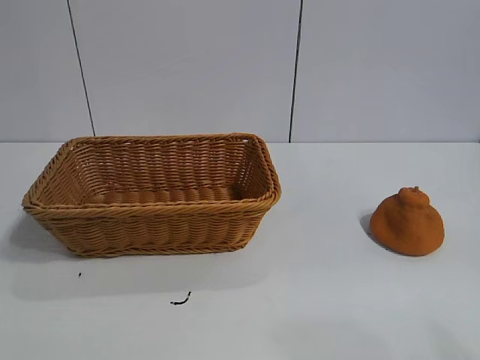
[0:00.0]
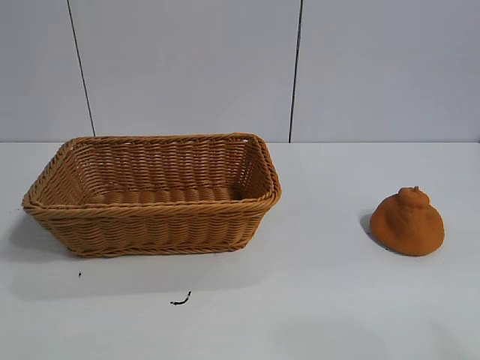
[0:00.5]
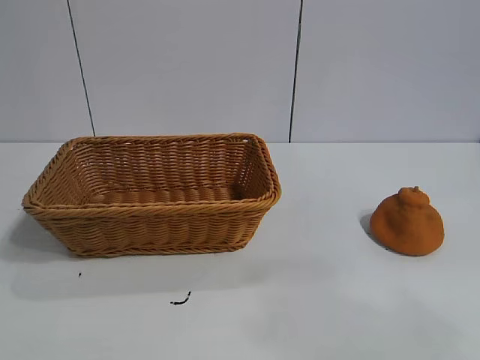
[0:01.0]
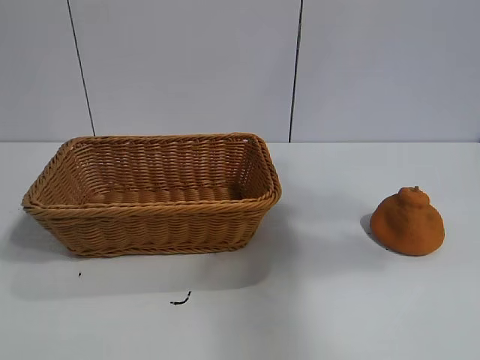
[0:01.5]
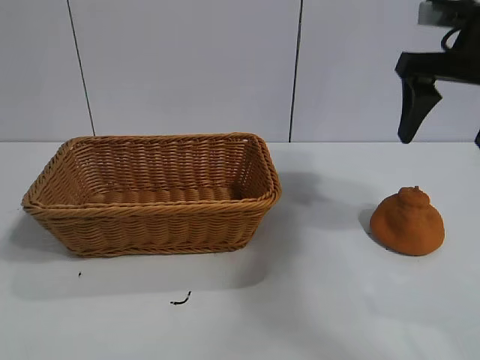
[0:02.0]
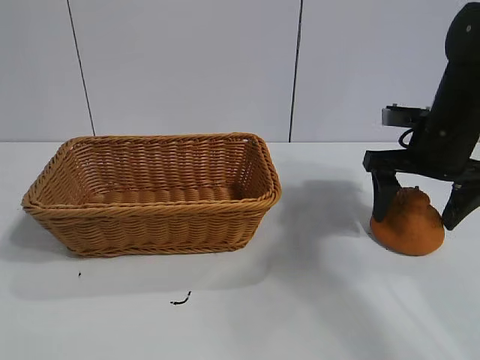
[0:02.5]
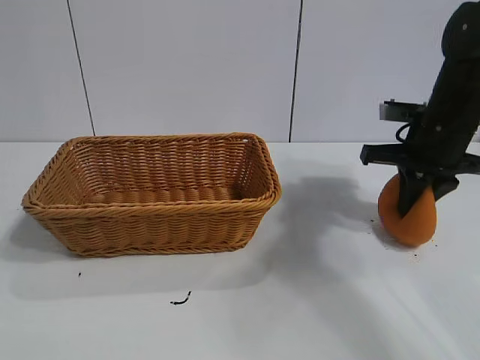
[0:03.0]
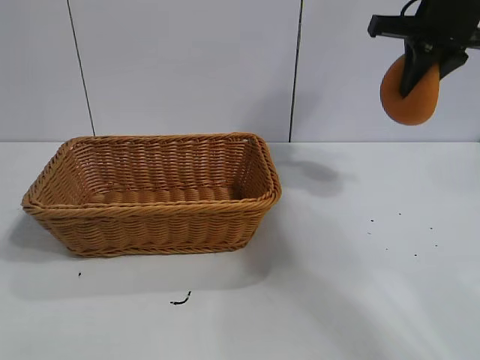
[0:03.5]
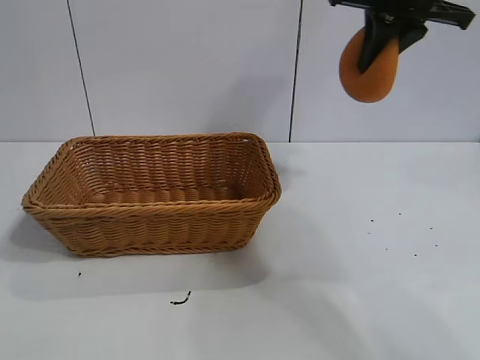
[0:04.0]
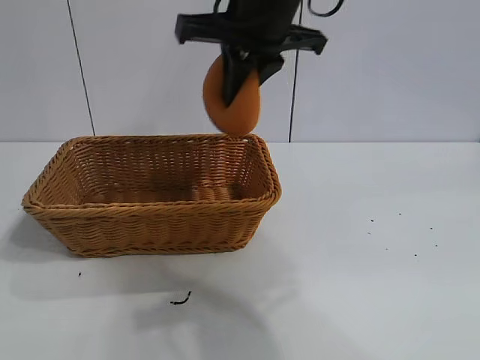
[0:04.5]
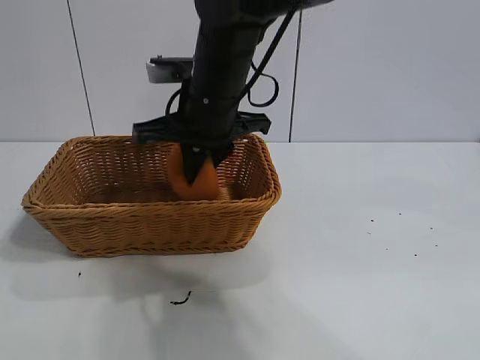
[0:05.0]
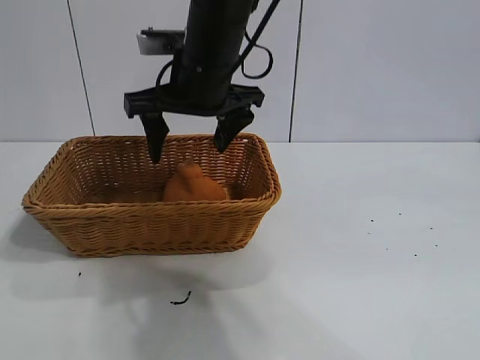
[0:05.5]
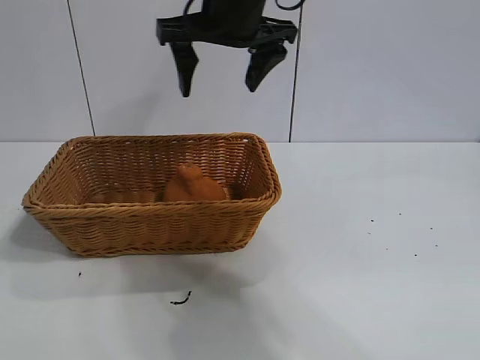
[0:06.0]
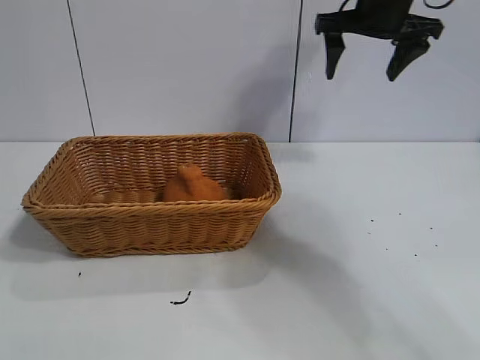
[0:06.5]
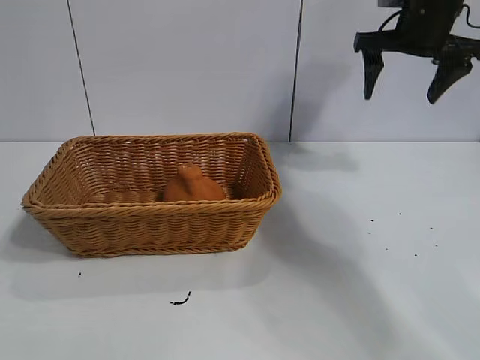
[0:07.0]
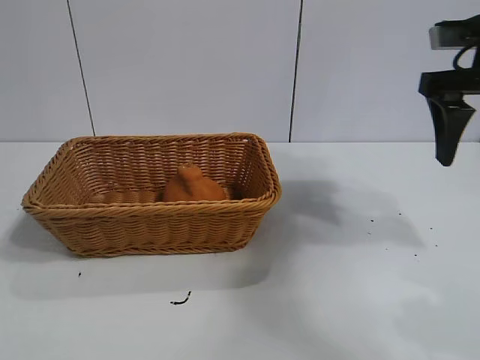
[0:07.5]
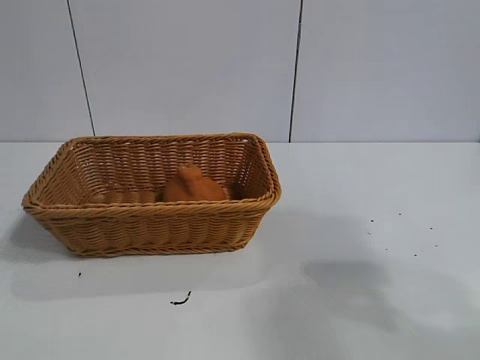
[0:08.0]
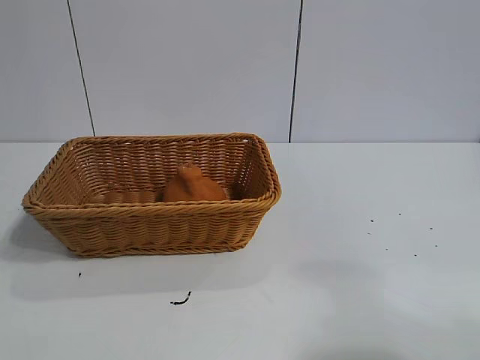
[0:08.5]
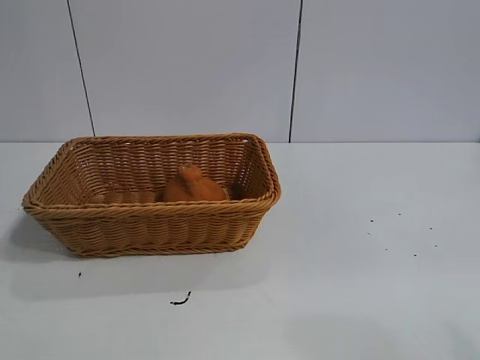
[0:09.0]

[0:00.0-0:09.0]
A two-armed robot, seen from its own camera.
Task of the whole recording: pick up the orange and put it into the basket.
Step, 0:00.0 to 0:02.5: Grasp the orange with right gripper.
Step, 0:03.0 to 0:05.5: Place the orange in the basket with right gripper.

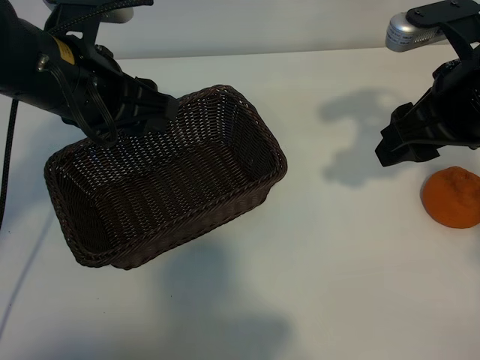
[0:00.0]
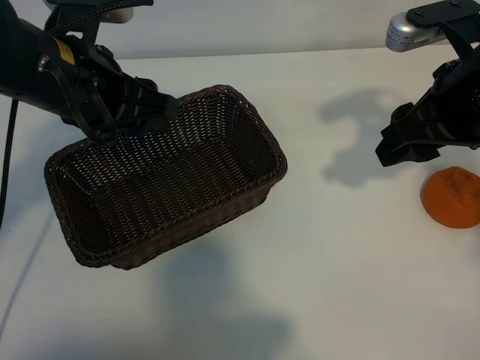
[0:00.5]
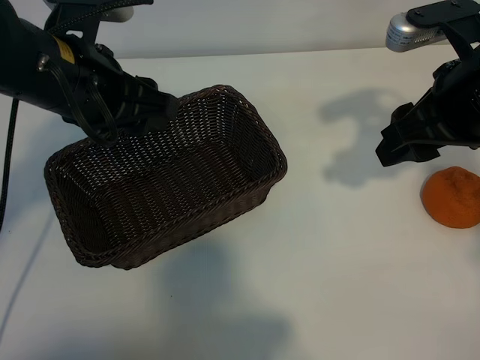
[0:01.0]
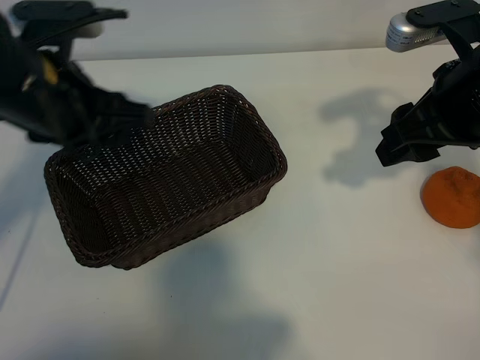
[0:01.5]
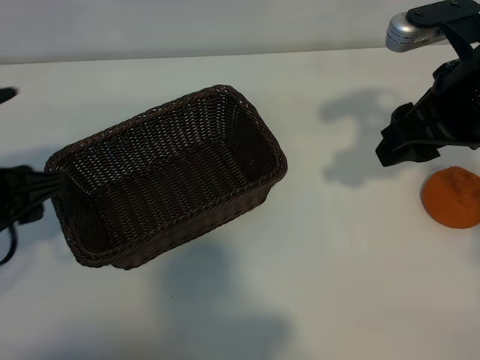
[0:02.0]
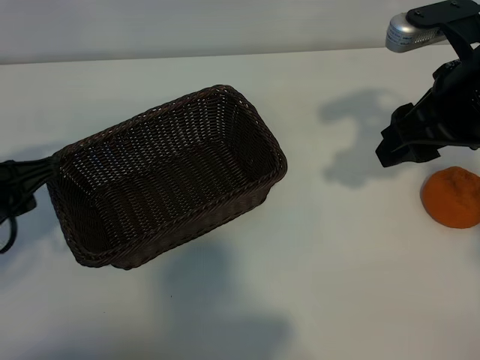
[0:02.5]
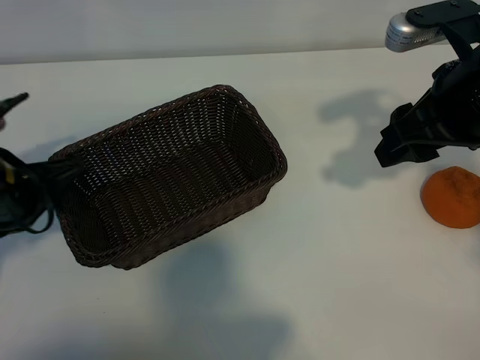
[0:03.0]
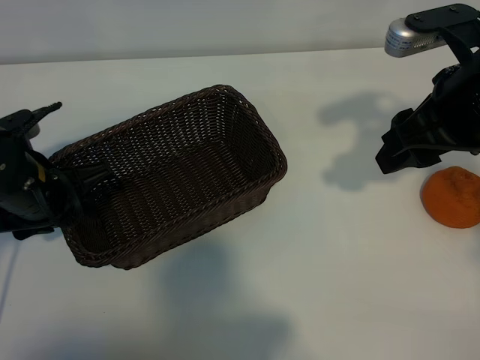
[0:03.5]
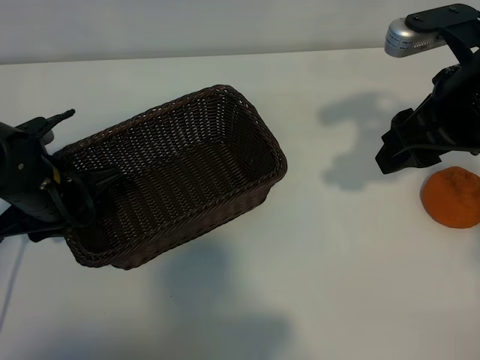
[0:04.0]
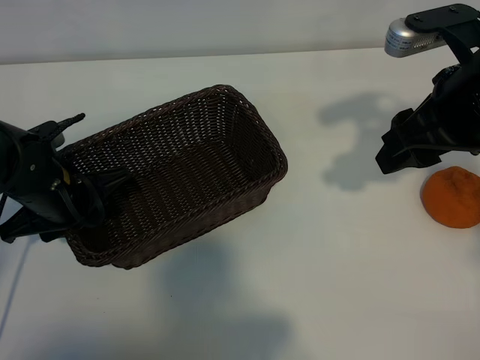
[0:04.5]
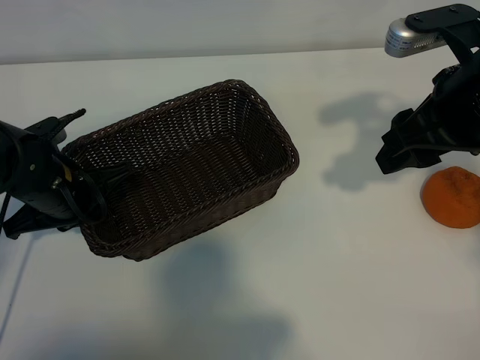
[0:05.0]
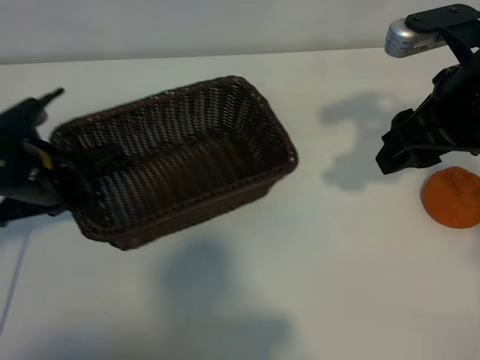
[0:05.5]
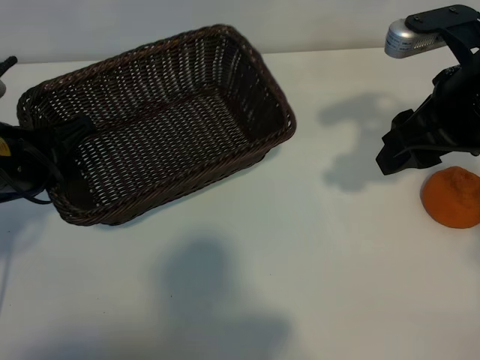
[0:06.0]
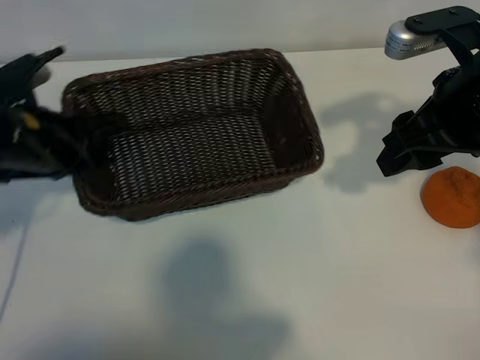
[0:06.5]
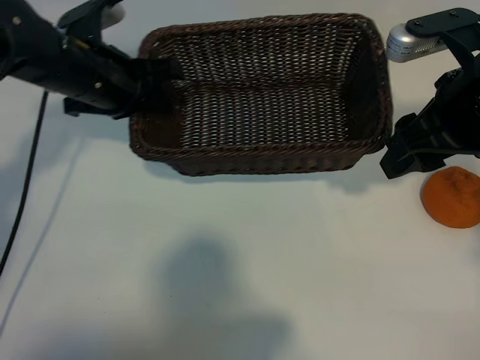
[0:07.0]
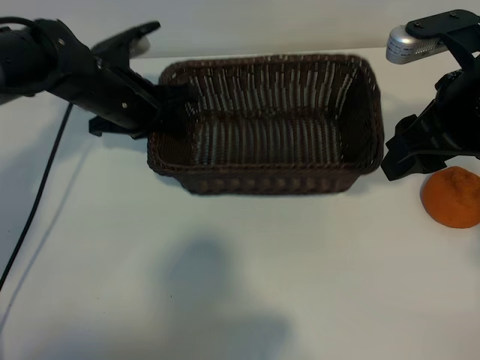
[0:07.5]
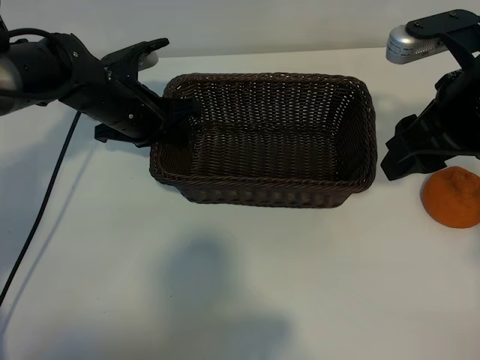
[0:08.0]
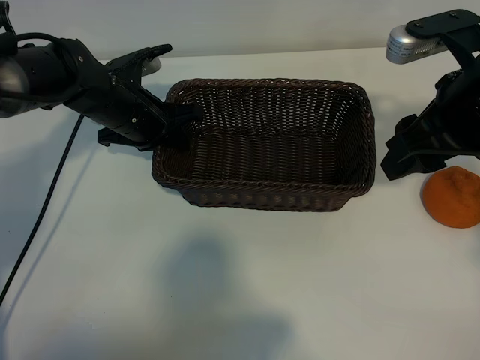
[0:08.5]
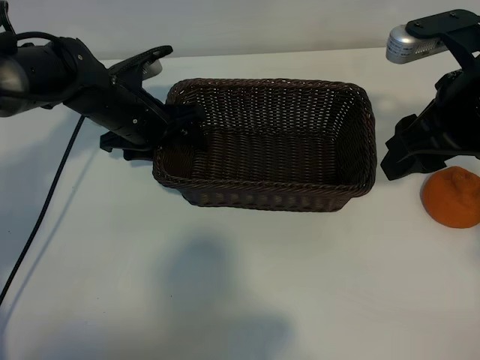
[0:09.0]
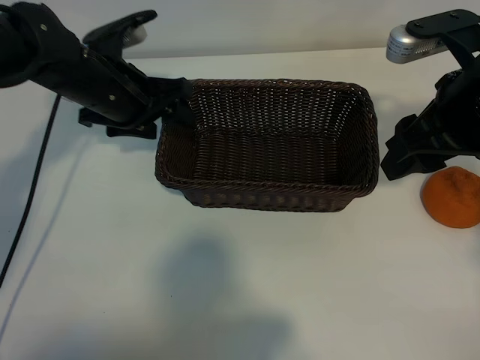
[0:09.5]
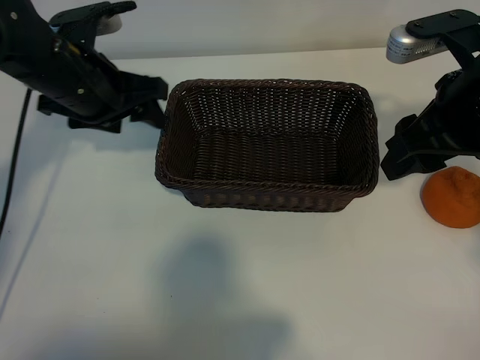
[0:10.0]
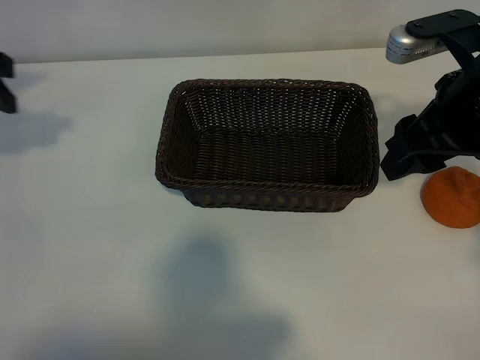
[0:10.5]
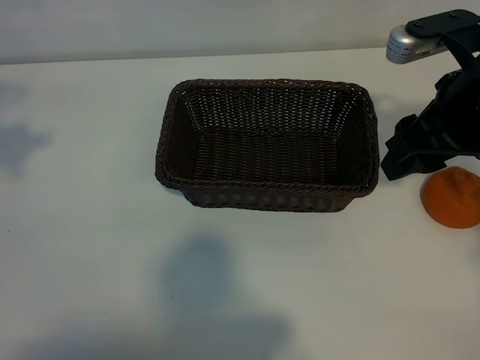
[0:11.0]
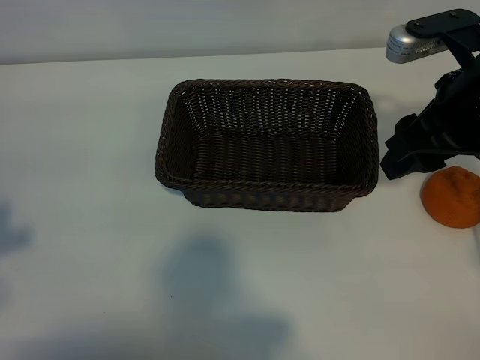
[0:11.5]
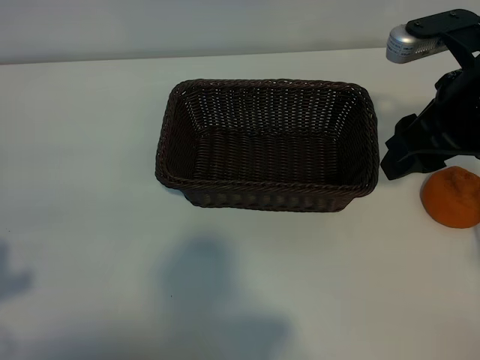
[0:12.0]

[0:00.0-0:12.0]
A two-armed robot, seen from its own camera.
Task of the whole recording: pick up the orange and put it into the basket.
Step, 0:01.0 to 0:04.5: Grasp the basket with left gripper.
Step, 0:05.0 to 0:09.0: Place the basket in the center of view with left gripper.

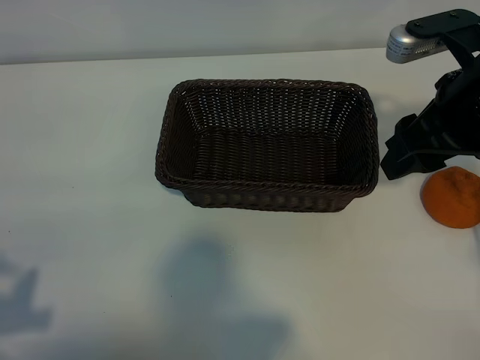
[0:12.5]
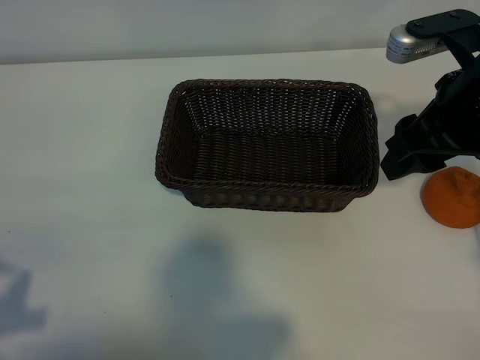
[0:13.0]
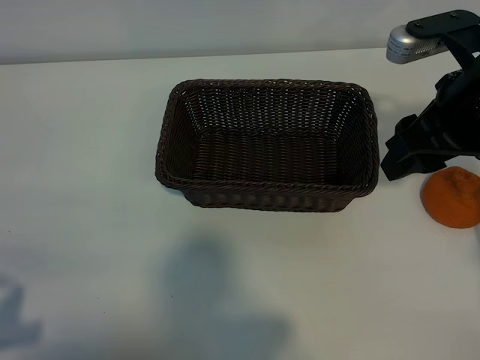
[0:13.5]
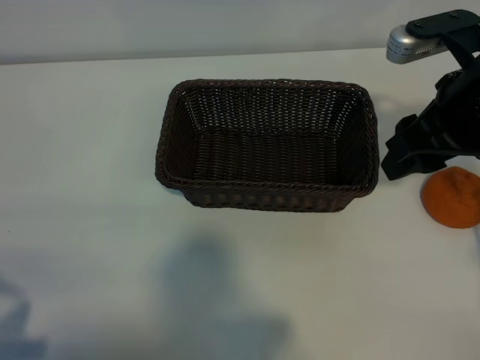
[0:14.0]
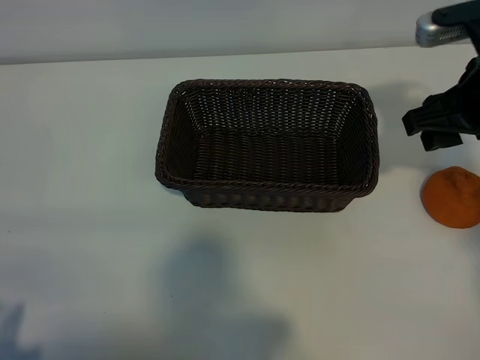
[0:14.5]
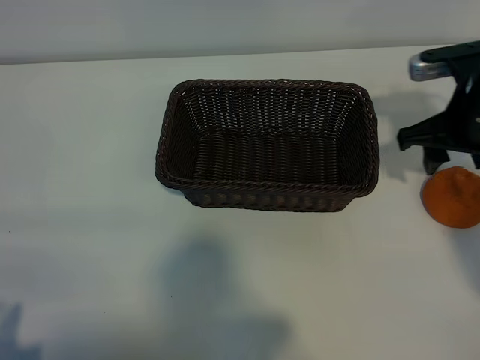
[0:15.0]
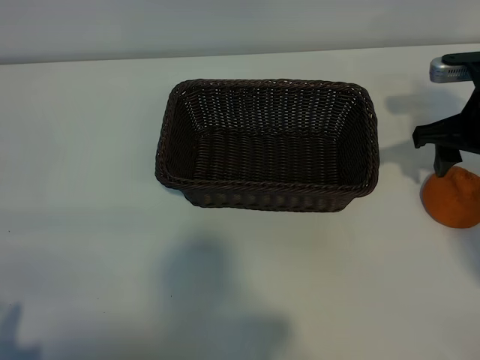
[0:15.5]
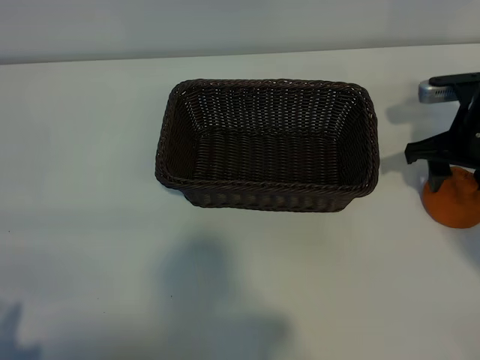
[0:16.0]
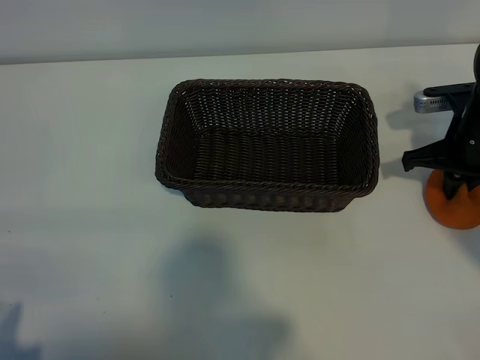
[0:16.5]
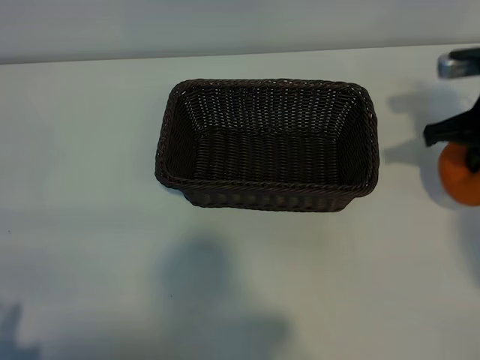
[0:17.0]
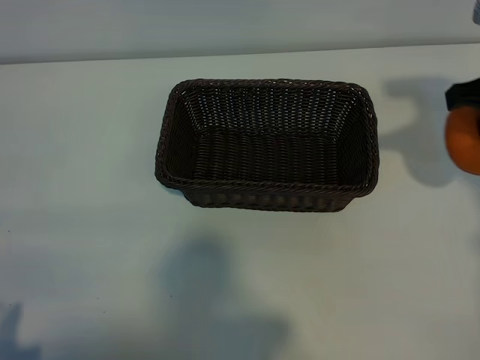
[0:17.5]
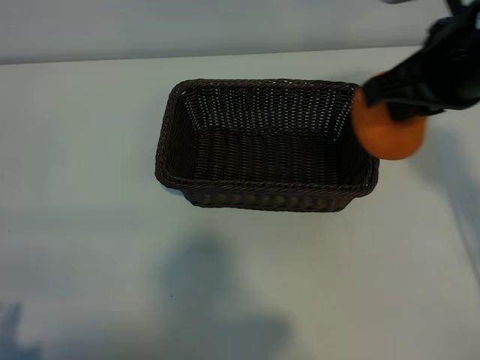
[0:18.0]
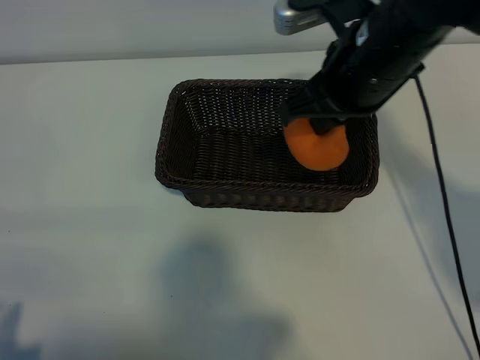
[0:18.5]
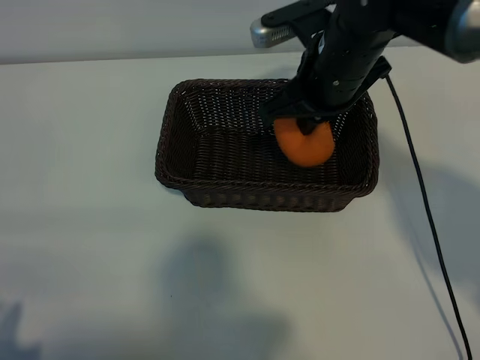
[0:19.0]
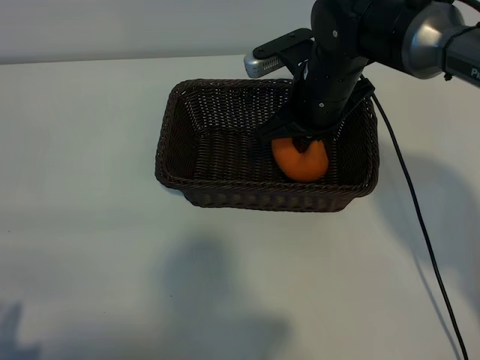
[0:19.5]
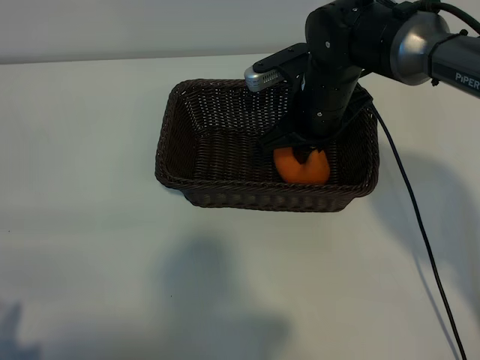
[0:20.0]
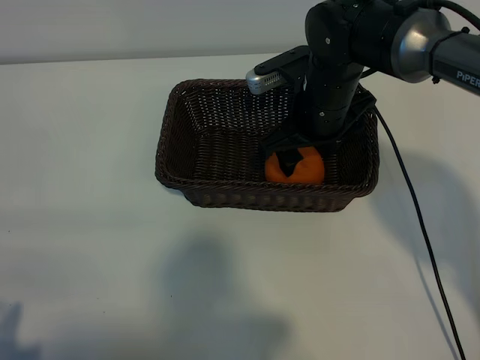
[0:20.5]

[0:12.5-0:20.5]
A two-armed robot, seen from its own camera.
Task of the whole recording: pick up the orange and put it into the basket.
Step, 0:12.5 to 0:16.5: Grasp the orange with right gripper.
Step, 0:17.0 to 0:20.0: Place the orange in the basket with right gripper.
